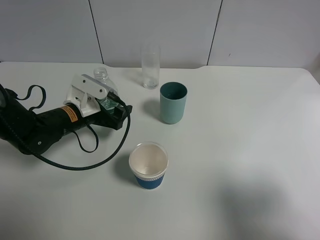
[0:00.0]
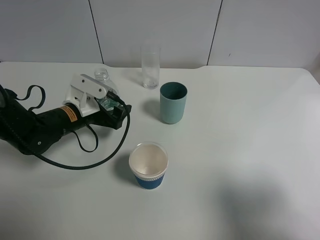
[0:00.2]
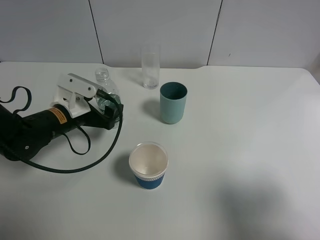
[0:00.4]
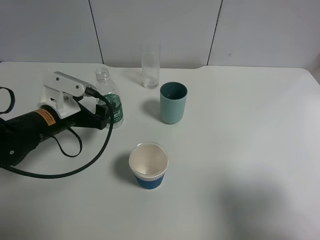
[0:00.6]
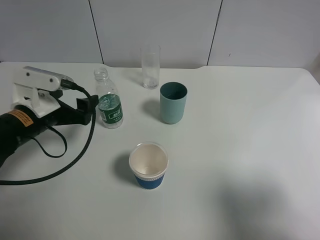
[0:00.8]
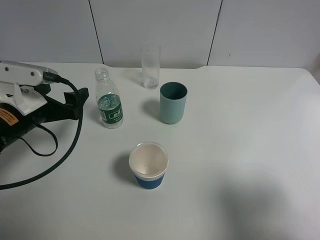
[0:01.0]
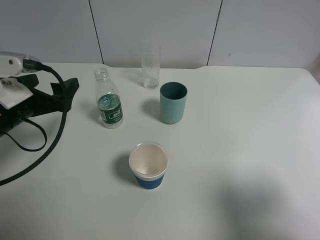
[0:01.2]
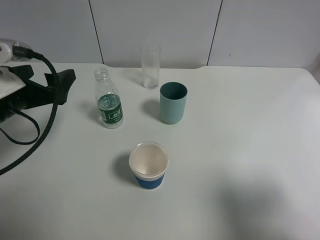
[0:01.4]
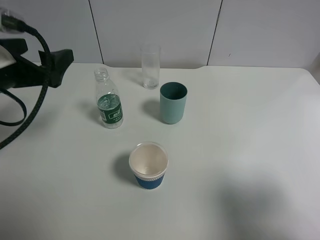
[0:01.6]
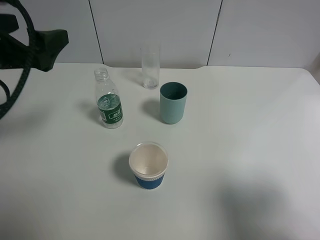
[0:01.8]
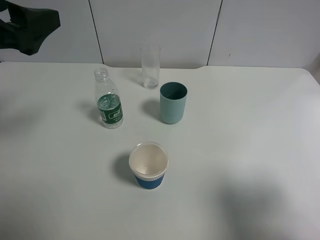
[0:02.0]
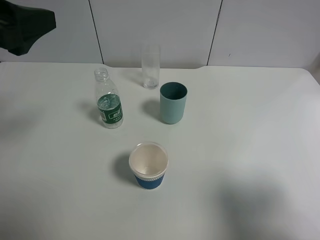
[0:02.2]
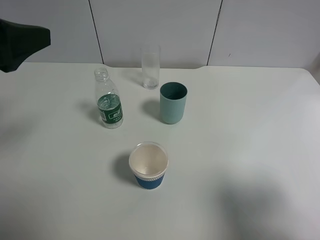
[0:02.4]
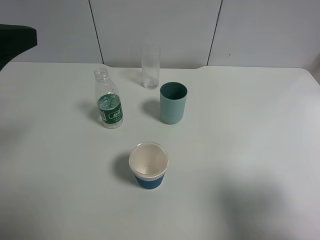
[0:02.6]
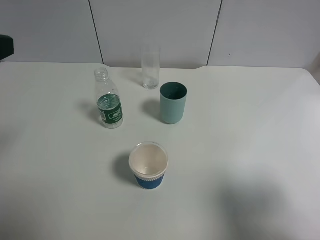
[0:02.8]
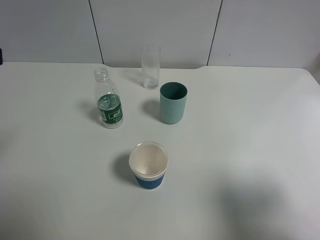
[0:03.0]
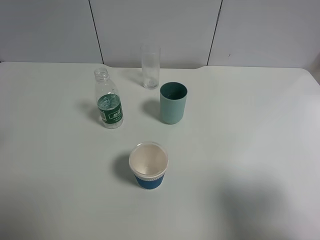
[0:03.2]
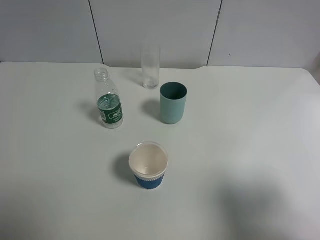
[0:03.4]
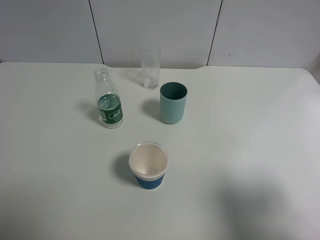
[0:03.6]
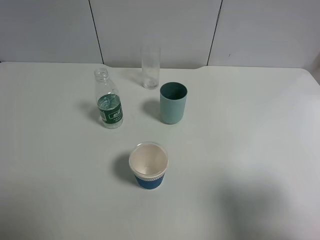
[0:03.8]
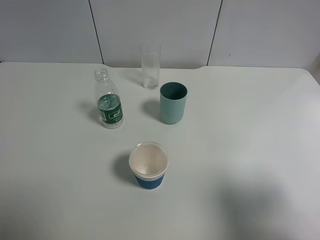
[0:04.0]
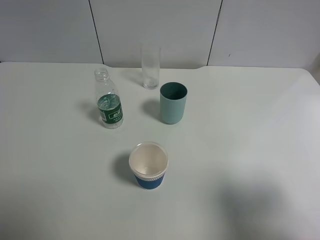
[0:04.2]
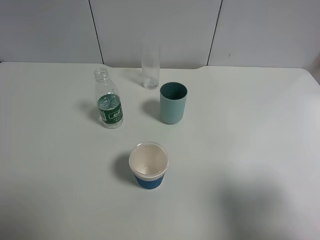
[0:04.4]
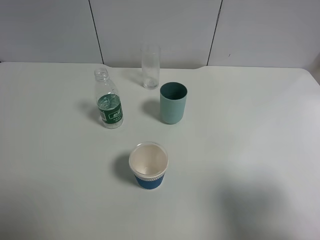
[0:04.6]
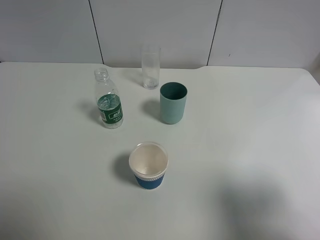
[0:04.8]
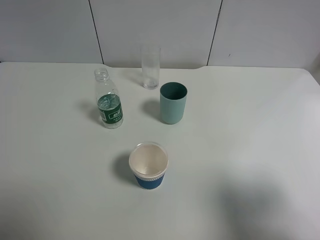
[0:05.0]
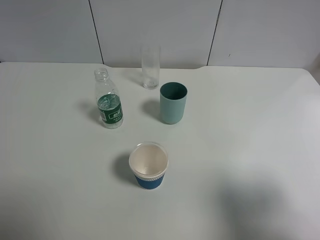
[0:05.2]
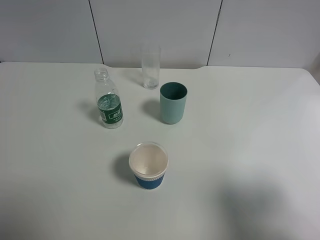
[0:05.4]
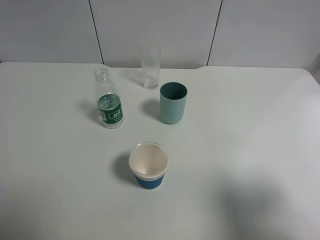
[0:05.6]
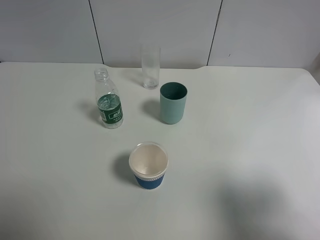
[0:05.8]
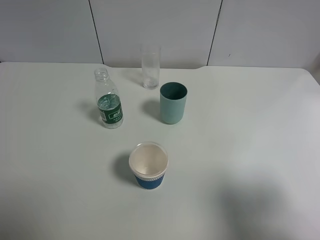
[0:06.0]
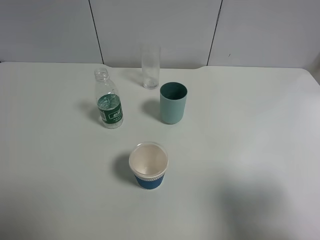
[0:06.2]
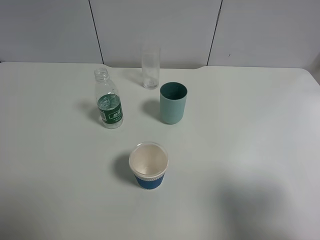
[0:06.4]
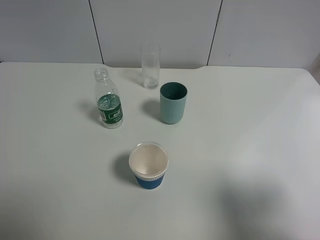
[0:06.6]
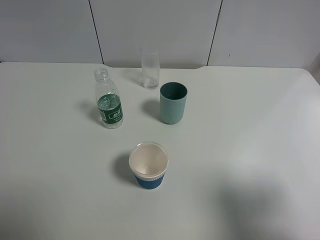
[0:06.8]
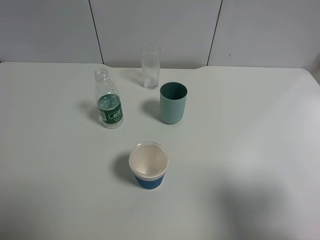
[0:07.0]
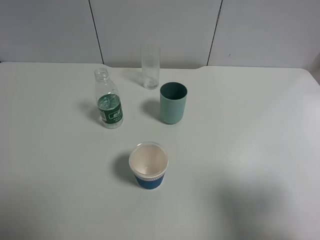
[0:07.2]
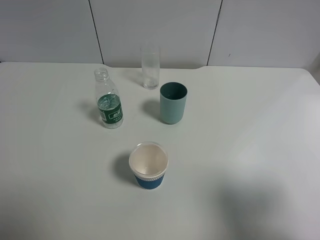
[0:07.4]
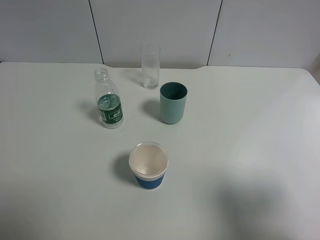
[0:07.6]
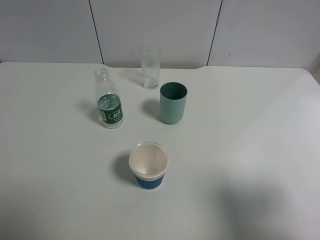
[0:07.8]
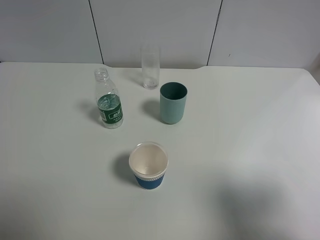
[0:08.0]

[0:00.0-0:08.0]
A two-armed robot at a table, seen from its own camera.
Task of the whole recording: use a gripper to hold the bottle of the drink and pour it into a random cup.
0:00.0 to 0:01.6: The left gripper moves upward and backward, roughly 20 cm.
0:01.6 to 0:03.2: The left gripper is displaced backward, upward and to the left by approximately 15 cm.
0:04.8 to 0:08.0: Both grippers stay put.
